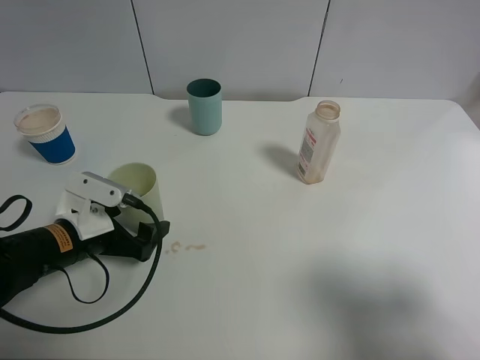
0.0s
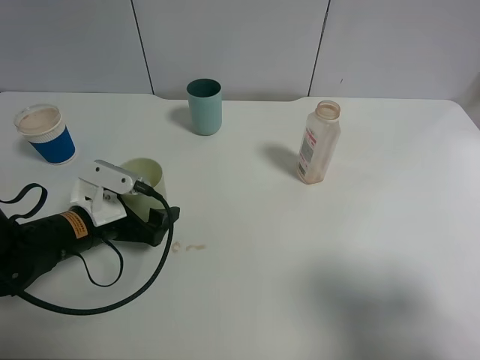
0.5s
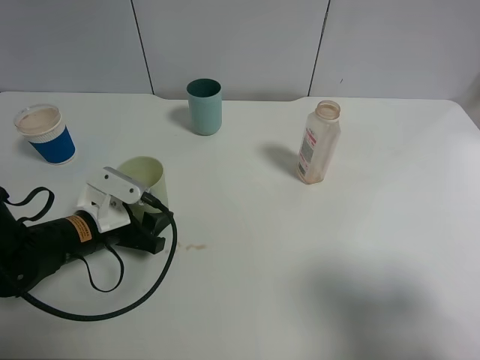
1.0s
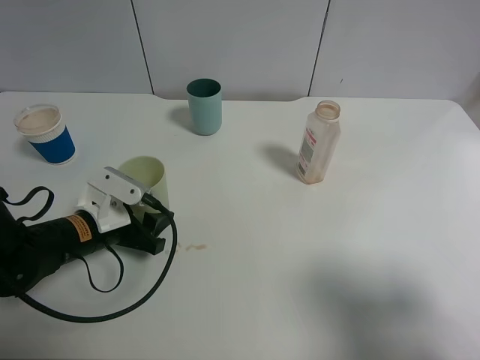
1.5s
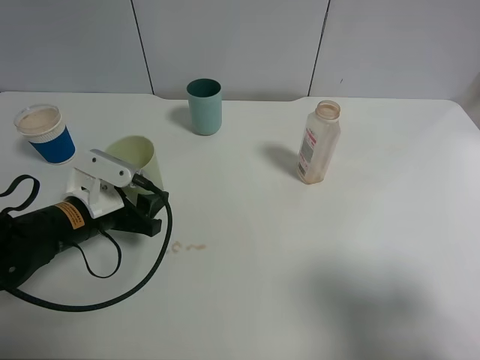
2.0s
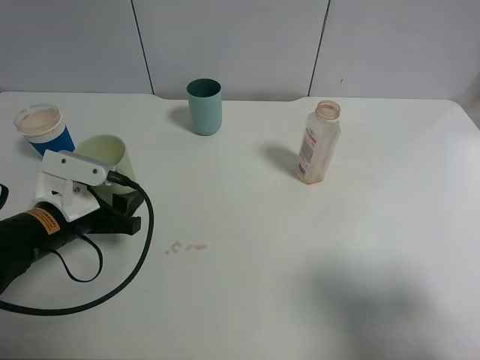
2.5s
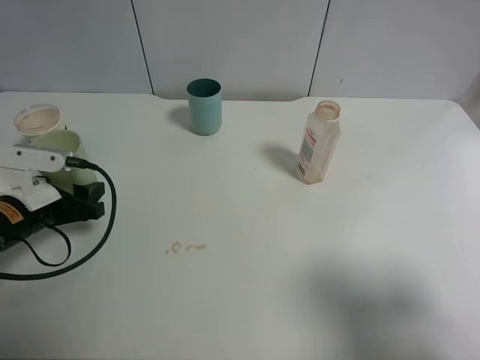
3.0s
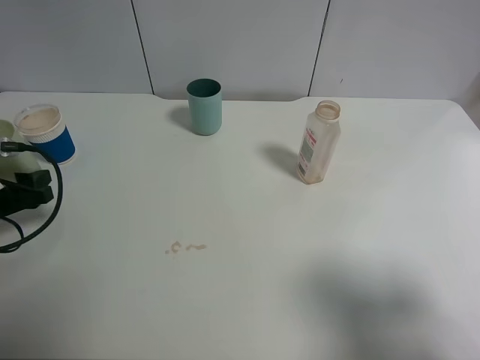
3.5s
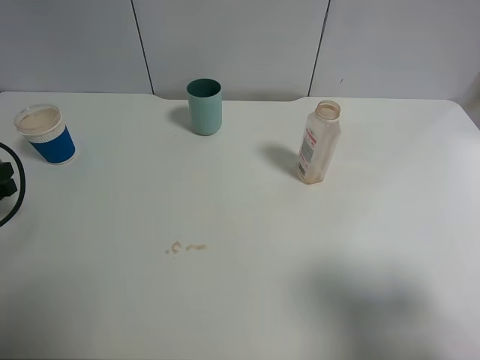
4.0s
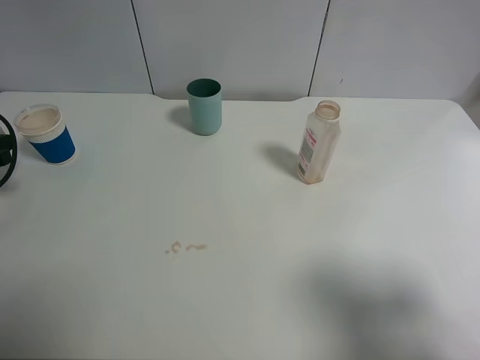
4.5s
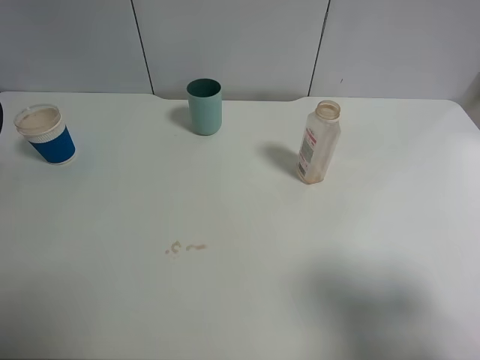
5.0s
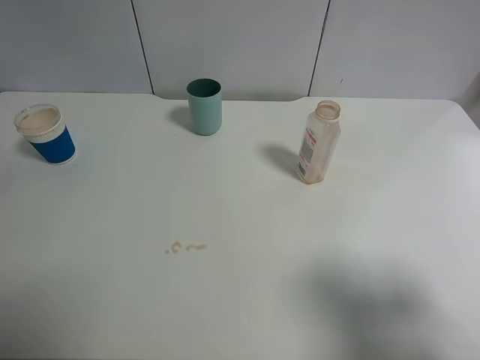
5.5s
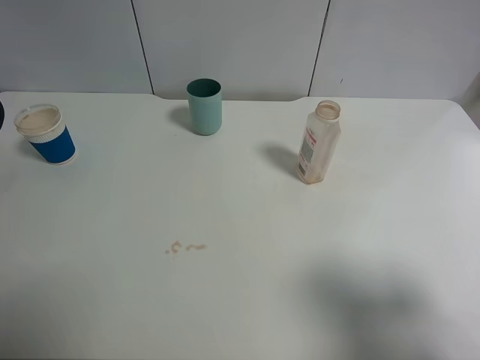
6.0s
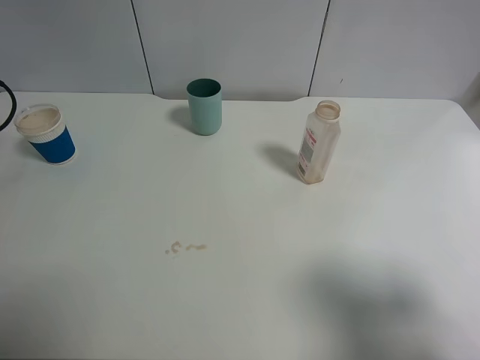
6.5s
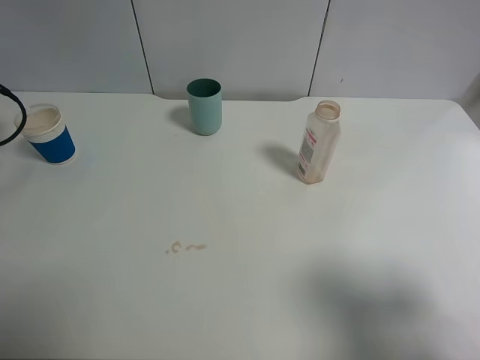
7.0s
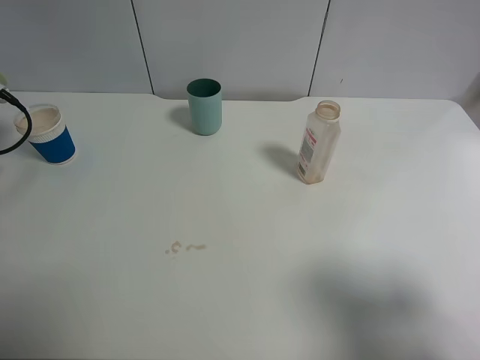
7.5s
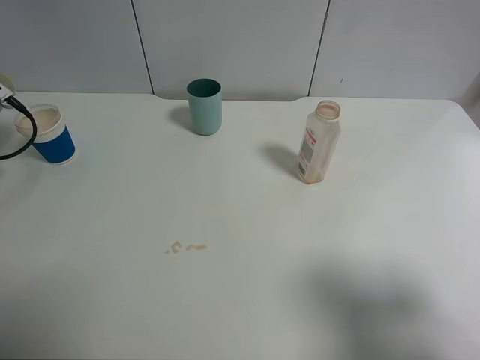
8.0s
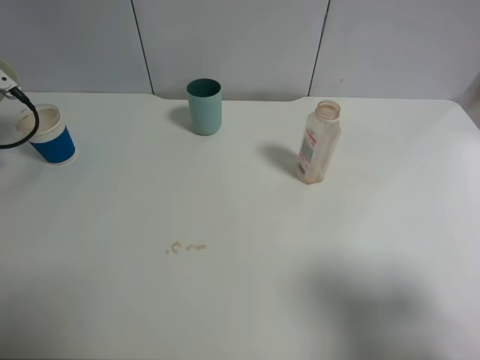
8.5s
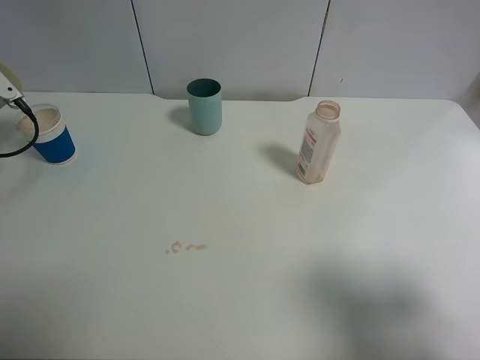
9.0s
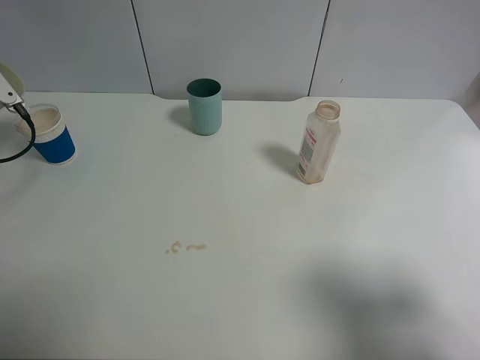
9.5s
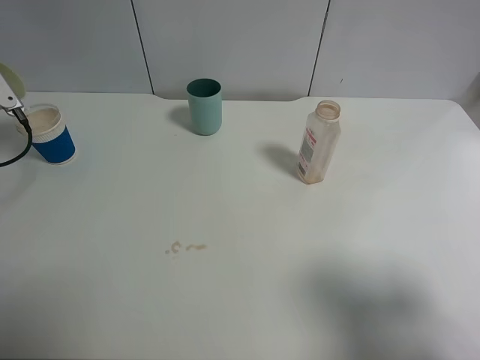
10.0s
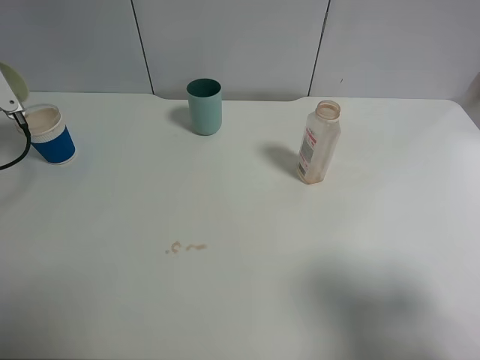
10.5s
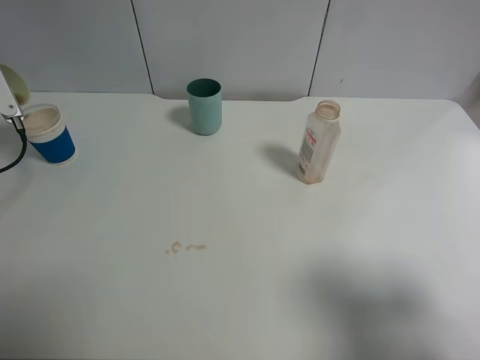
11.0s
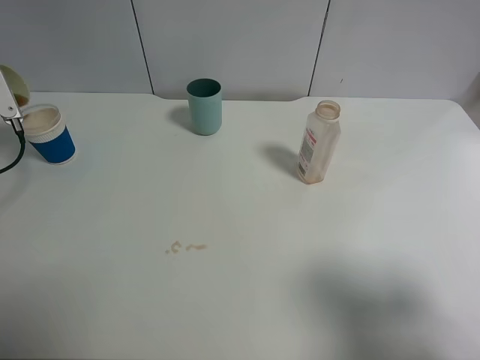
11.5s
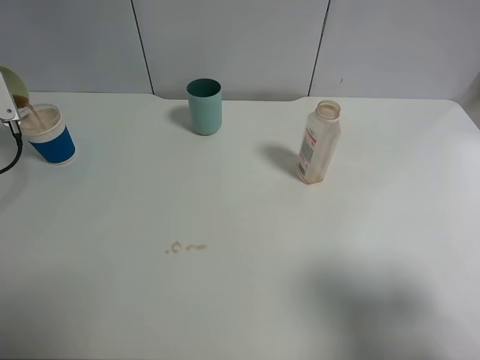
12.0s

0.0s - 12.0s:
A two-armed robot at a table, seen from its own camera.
Task of the whole recording: use a clamp to hold the bottle of the drink, pour the beverage into a random cup, then clamp the cup containing the drink and pour the drink into another random cup.
0.0s - 2.0s: The left gripper closes.
2.0s - 4.0s: The left gripper shifts roughly 20 cm to the left.
4.0s - 6.0s: The left gripper goes some 15 cm forward, to the left and upward.

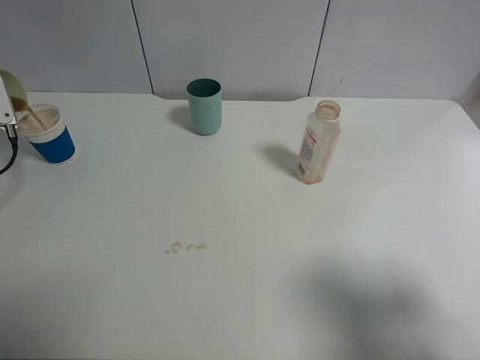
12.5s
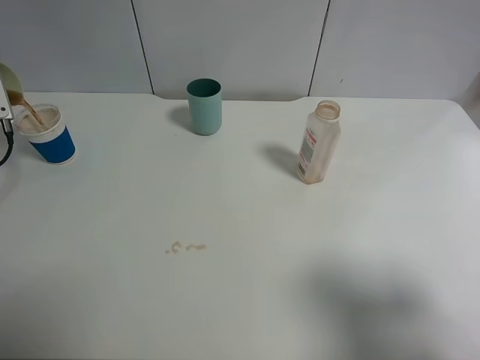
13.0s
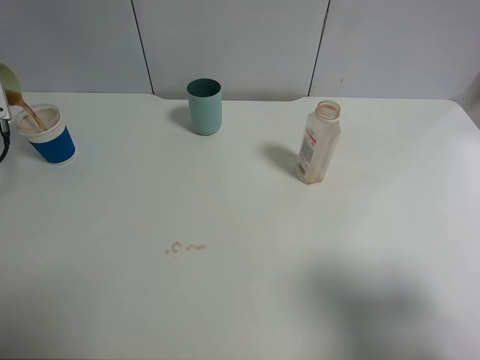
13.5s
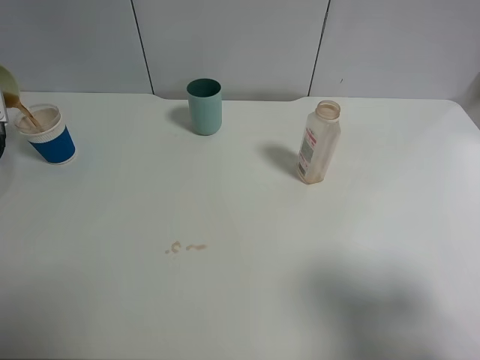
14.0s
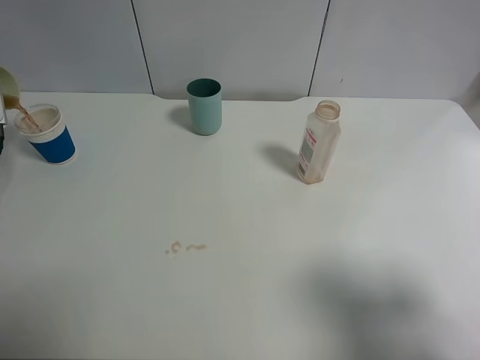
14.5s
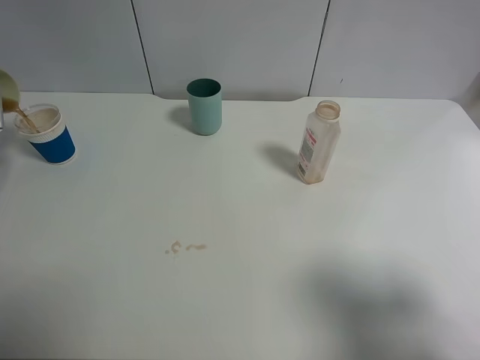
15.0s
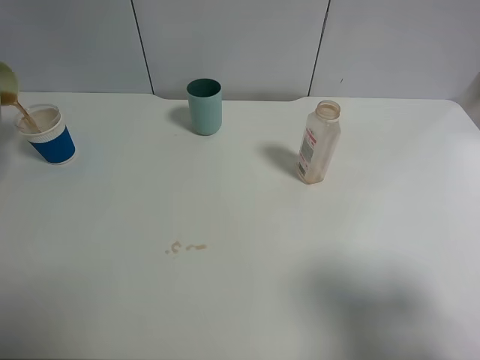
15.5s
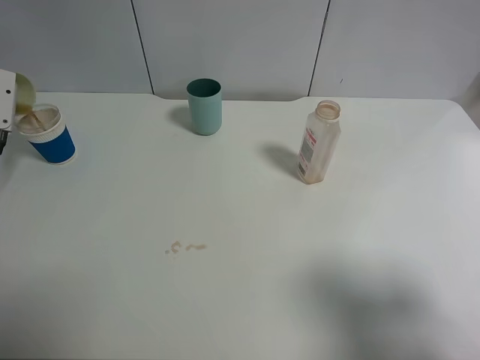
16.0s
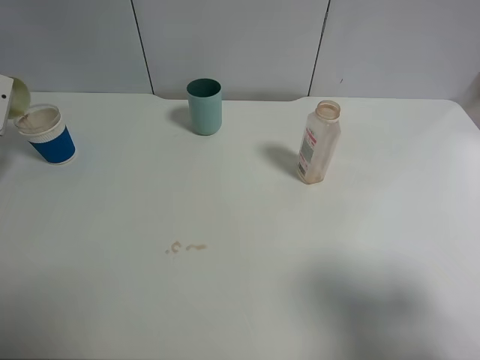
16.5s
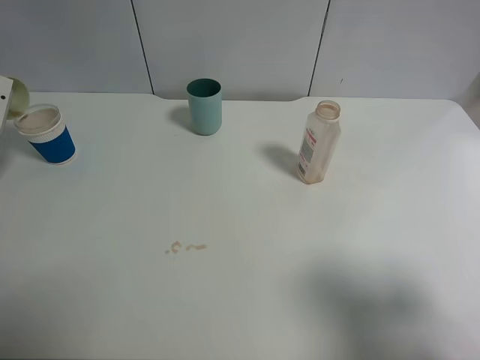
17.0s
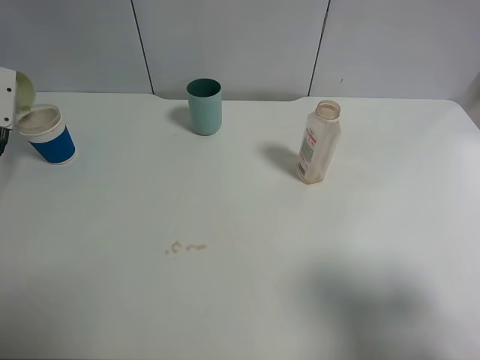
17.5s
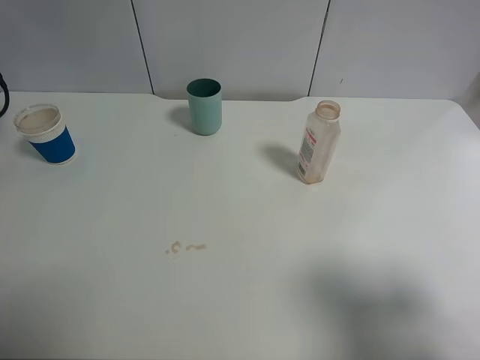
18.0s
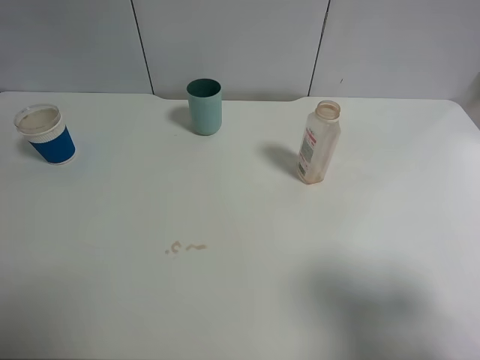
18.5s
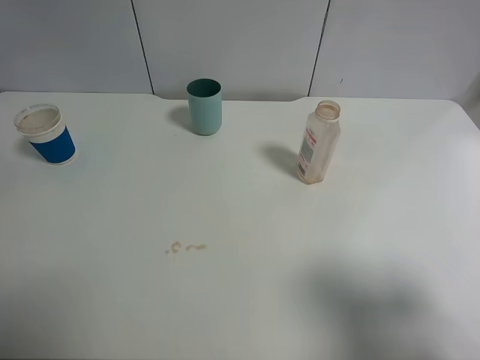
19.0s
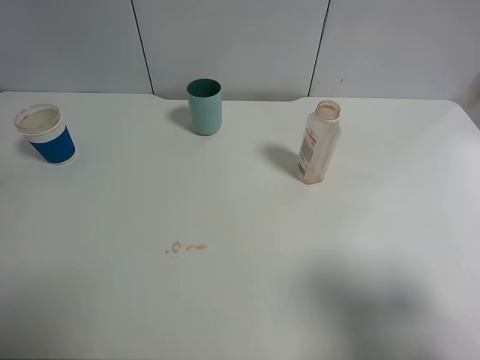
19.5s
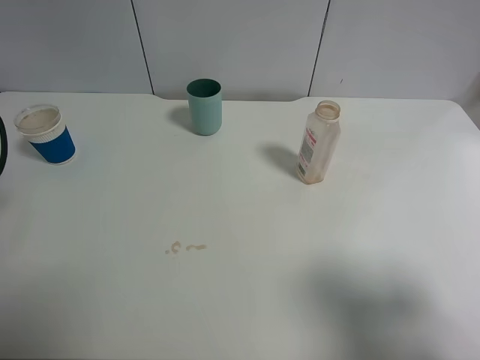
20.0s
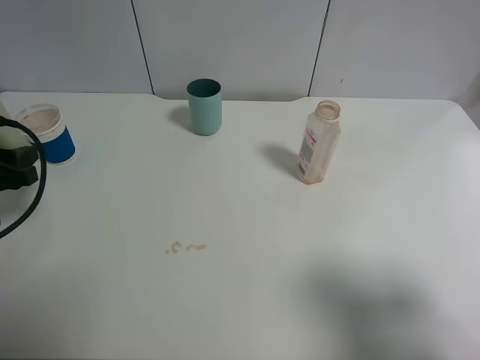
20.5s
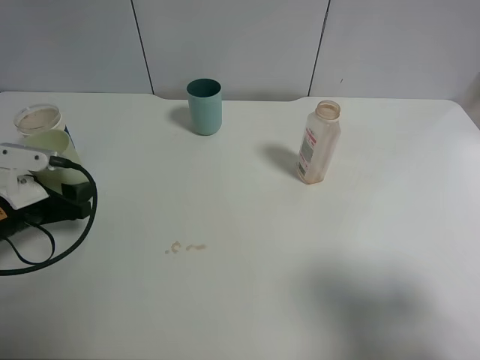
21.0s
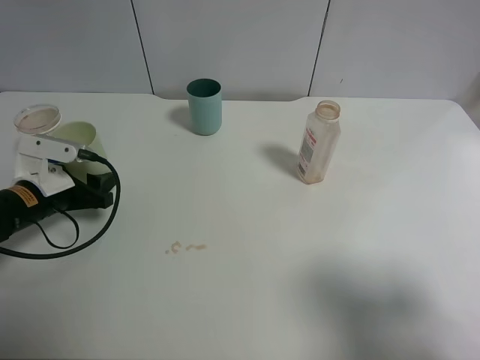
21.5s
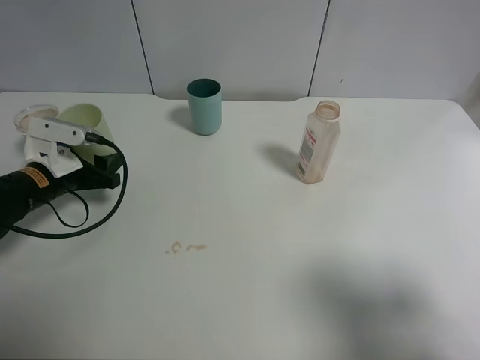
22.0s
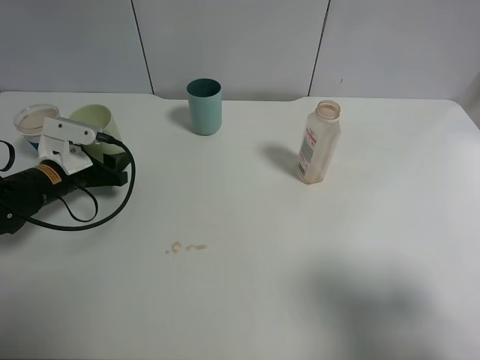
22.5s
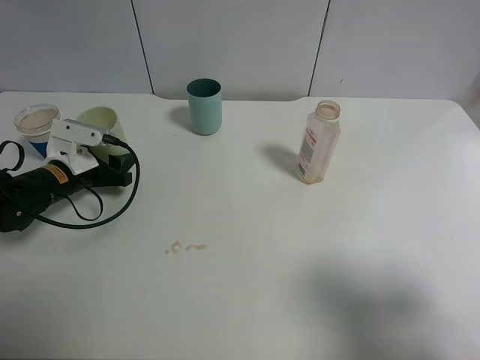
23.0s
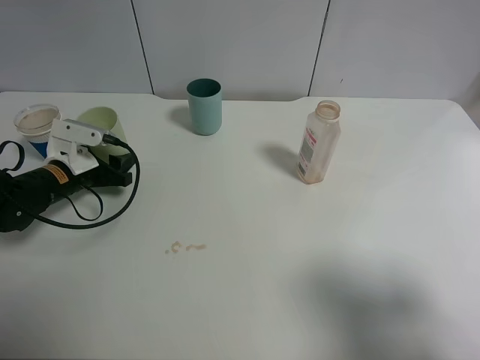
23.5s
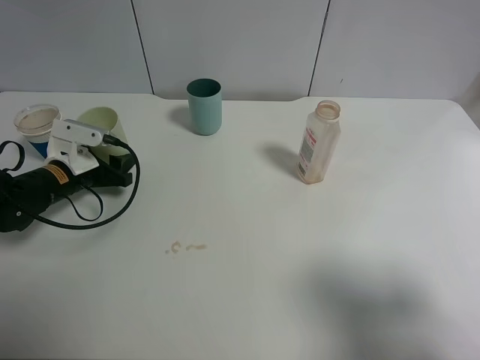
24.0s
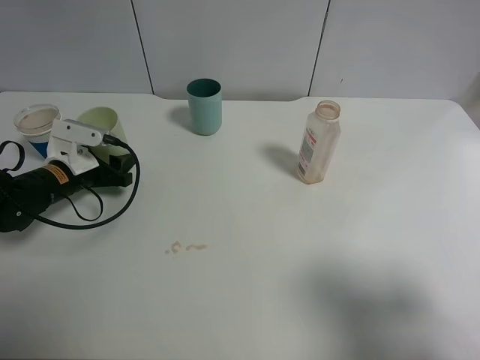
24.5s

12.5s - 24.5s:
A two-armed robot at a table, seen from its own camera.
Task of the whole recording: use a clamp to hold the bottle of the drink, pour the beverage into a random cup, then clamp the cup containing the drink and pour the drink into another random cup.
16.5s - 18.5s: The left gripper goes about 10 cm upward and backward.
18.5s - 20.5s: The left gripper moves downward, backward and to the right, about 20 cm.
20.5s - 22.5s: The left gripper shifts about 15 cm forward, downward and to the right.
22.5s - 24.5s: Neither gripper changes place.

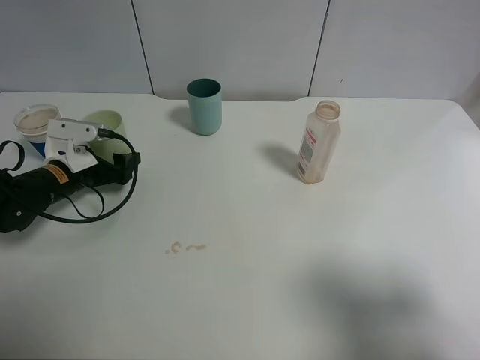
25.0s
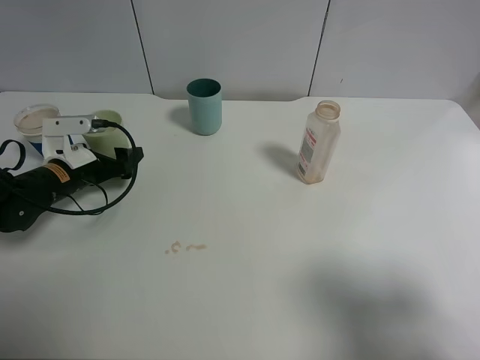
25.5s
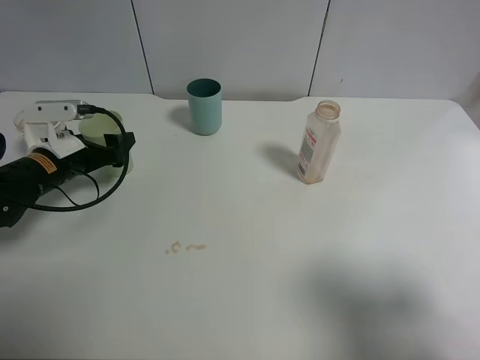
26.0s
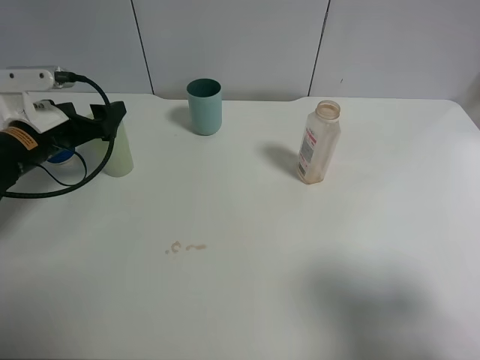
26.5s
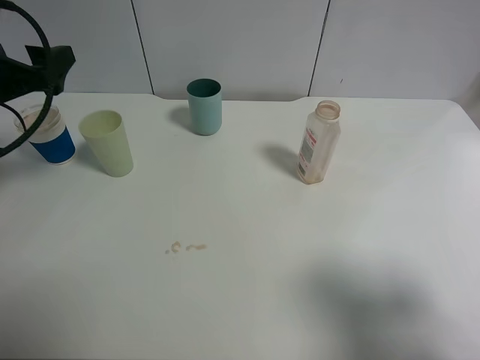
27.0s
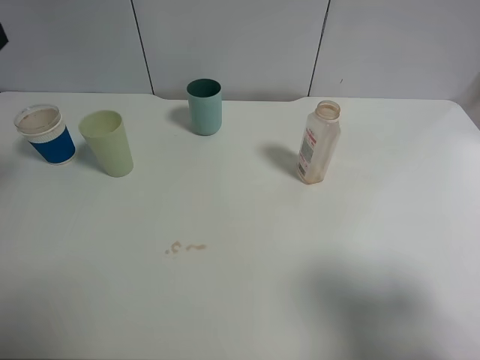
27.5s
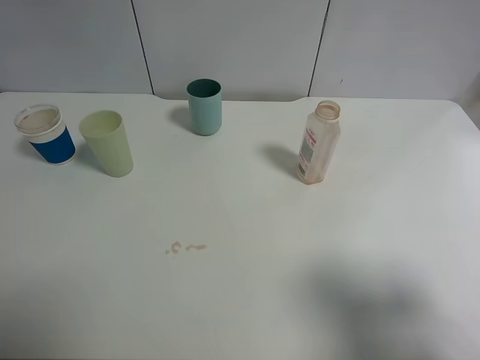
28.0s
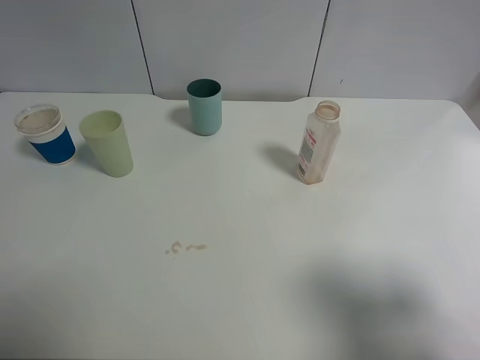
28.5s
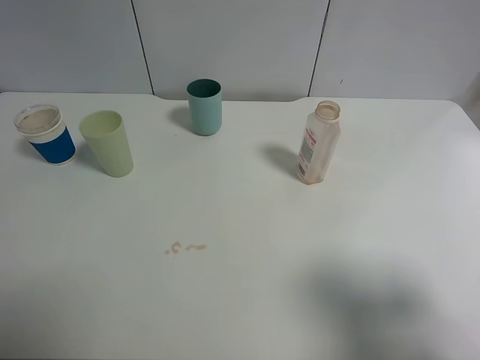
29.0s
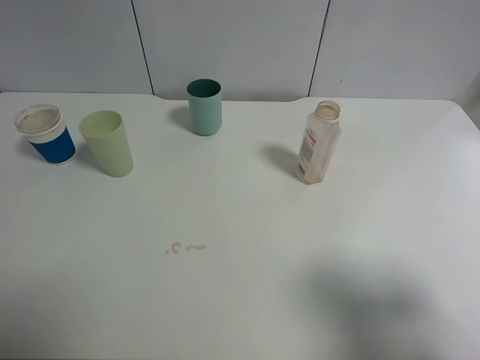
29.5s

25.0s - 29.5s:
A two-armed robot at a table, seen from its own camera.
Task of the whole recording: use a clamp to hold the bottle of the drink, pour the beverage into a random cup, then clamp the cup containing the drink and pour the drink into another random cup.
25.0s - 27.0s: The left gripper moves upward, some 20 cm, and opens.
27.0s - 29.5s: The left gripper shifts roughly 25 cm backward.
